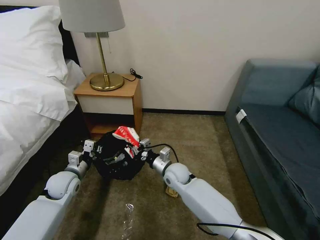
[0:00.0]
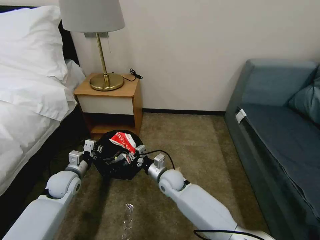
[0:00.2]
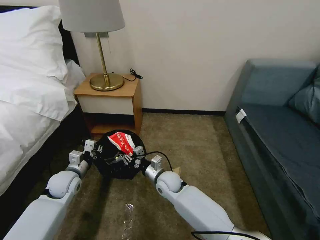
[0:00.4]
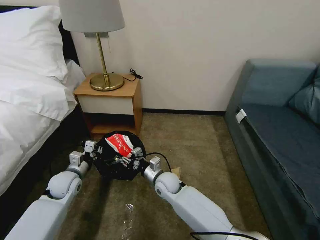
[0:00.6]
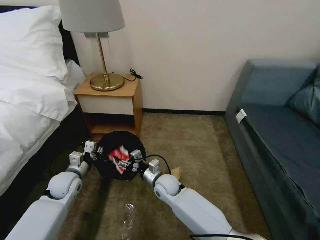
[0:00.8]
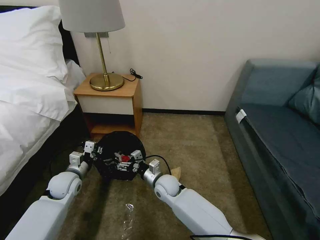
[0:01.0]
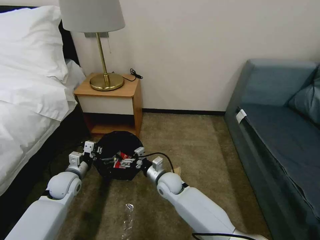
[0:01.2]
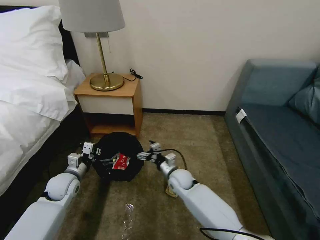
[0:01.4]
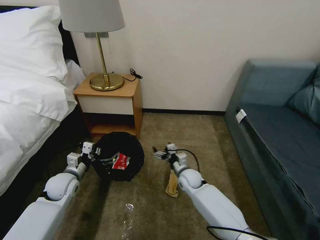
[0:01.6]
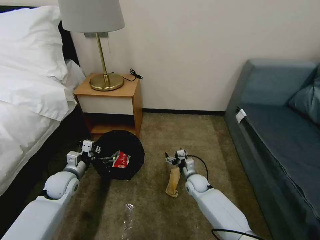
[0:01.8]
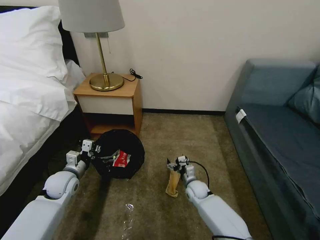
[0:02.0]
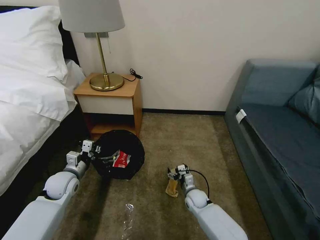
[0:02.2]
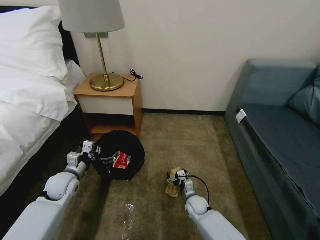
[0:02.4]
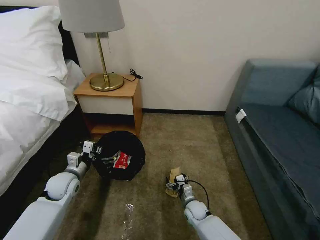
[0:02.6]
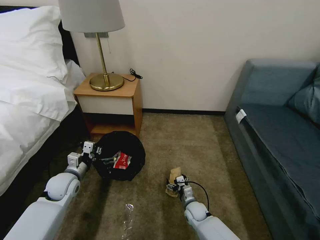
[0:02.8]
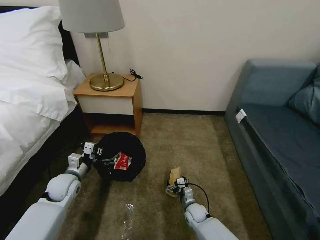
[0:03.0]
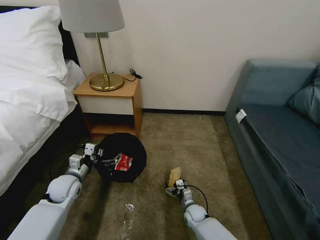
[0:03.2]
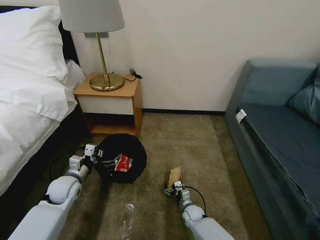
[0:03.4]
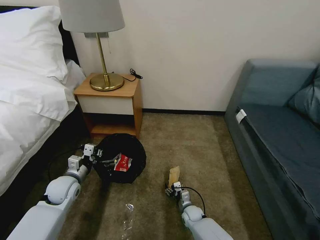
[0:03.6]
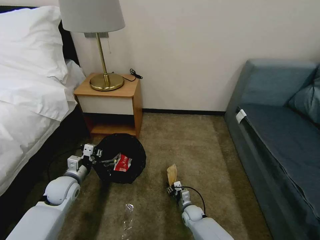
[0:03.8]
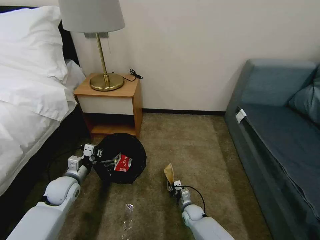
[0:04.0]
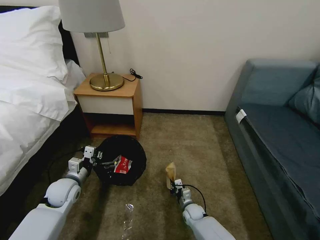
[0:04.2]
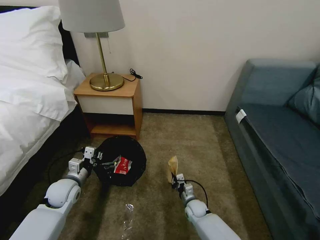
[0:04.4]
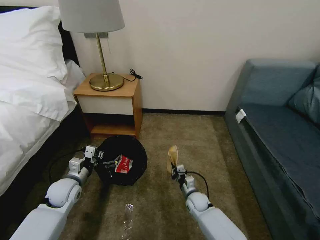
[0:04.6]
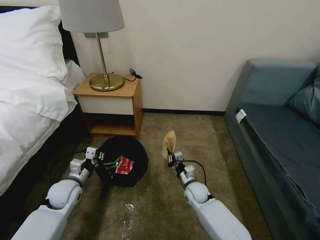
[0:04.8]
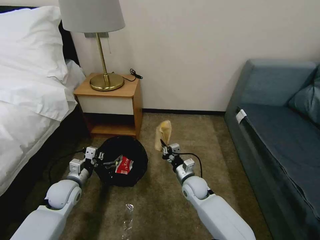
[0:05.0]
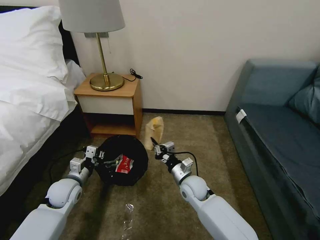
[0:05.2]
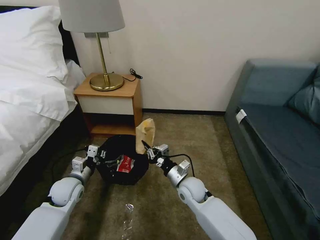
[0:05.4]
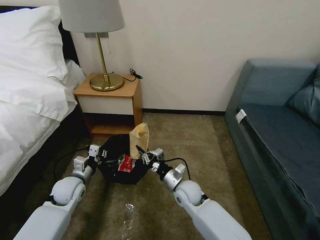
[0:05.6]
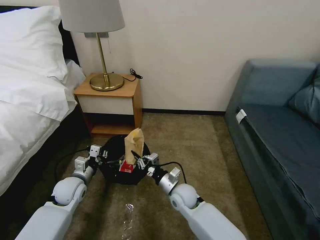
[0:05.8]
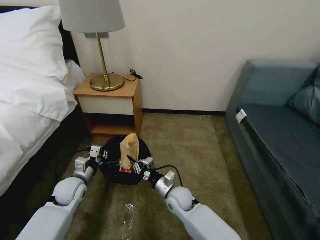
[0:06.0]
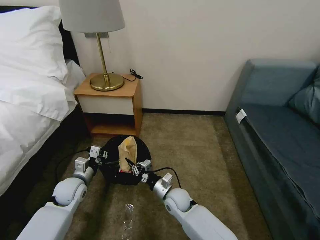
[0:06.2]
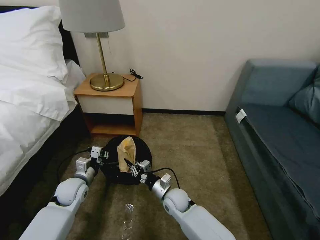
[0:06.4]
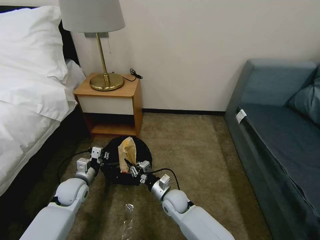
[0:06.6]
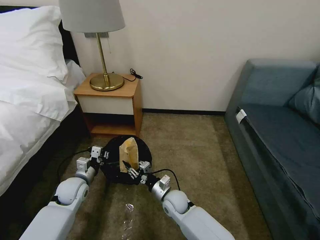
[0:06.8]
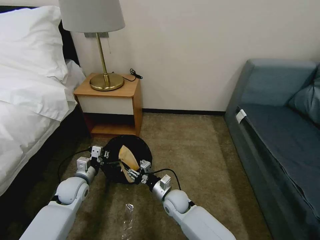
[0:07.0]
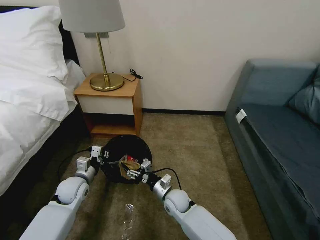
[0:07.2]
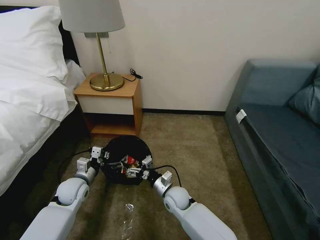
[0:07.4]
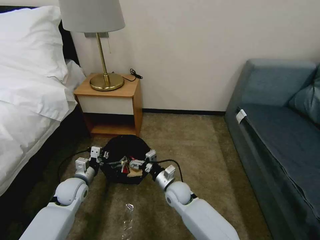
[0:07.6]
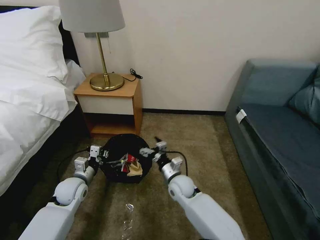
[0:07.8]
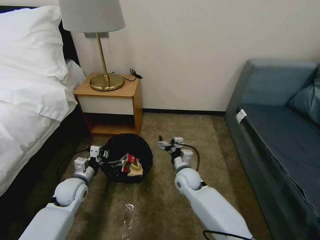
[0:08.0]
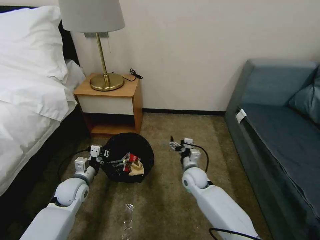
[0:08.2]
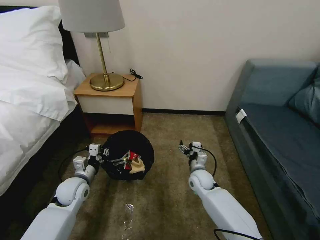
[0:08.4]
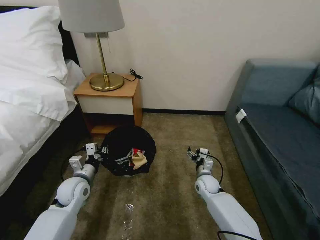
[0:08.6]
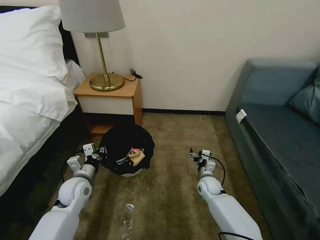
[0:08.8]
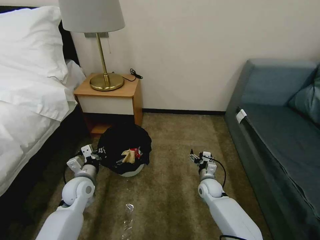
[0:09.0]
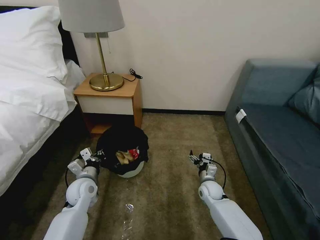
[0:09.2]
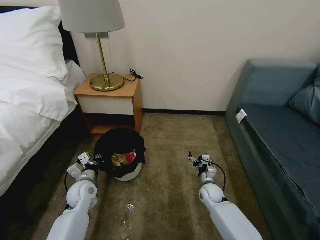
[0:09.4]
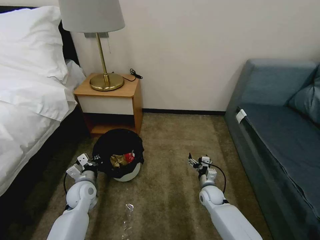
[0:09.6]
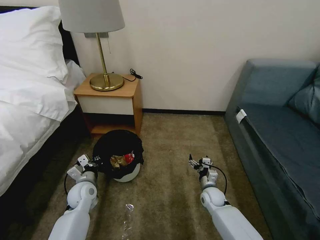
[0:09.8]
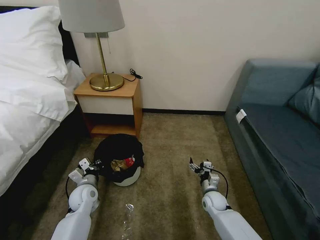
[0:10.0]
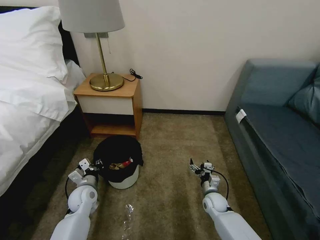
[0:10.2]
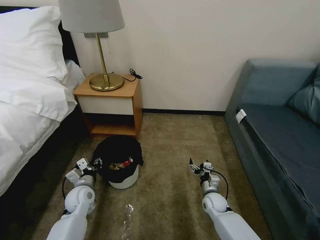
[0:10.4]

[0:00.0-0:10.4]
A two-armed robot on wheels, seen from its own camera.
Task of the whole recording: Pick up the trash bin, then pick up the garbage on the floor and place it into the trash bin.
0:00.0 to 0:01.4: The right gripper opens up.
0:01.4 to 0:03.0: The right gripper shifts roughly 20 cm downward, backward and to the right.
0:03.0 to 0:04.4: The right gripper closes its fingers.
0:04.4 to 0:06.0: The right gripper goes roughly 20 cm upward and to the left.
0:06.0 to 0:07.4: The right gripper opens its fingers.
0:07.4 to 0:09.0: The right gripper moves to the right, some 15 cm.
0:09.0 to 0:10.4: The left gripper shifts some 5 cm downward, and opens. The right gripper changes place by roughly 5 cm.

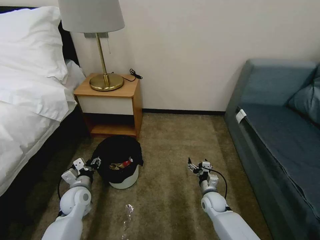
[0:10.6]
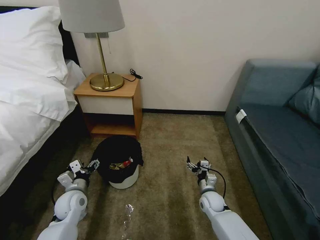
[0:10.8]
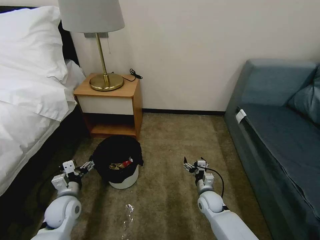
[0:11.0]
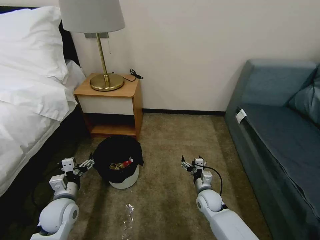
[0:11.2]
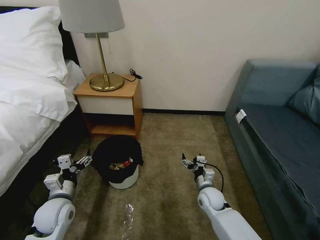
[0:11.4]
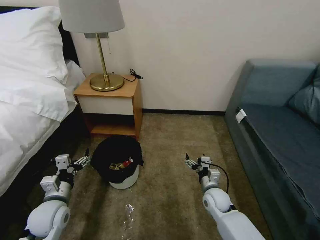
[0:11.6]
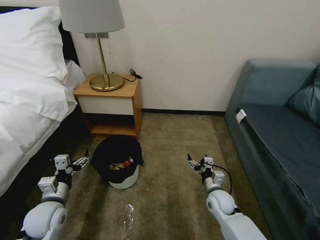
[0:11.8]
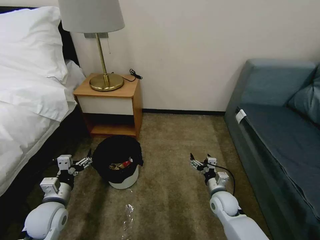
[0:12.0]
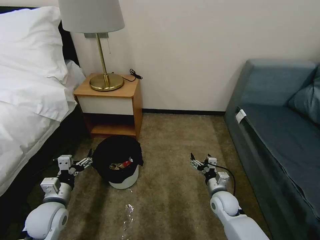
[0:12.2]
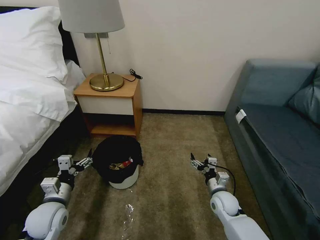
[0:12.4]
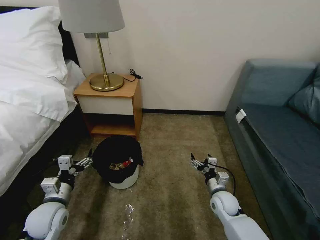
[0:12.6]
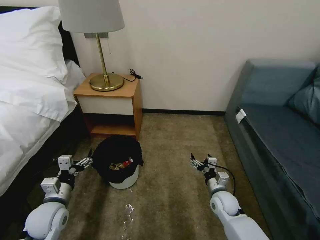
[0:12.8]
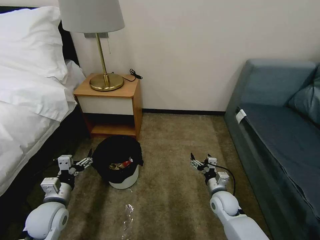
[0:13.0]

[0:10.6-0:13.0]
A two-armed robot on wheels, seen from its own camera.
Task of the whole recording: Pick up the trash bin, then pick up the garbage on the floor and place it into the trash bin.
0:10.6 to 0:11.8: The right gripper travels upward by approximately 5 cm; the left gripper shifts about 10 cm backward and upward, and opens up.
0:11.8 to 0:13.0: The grippers stay close to where they were, moving slightly.

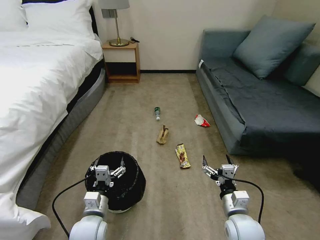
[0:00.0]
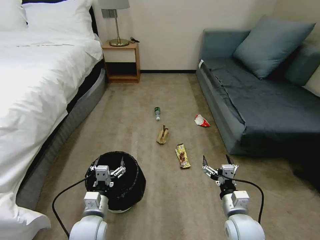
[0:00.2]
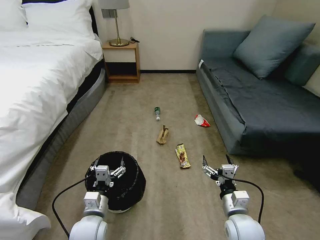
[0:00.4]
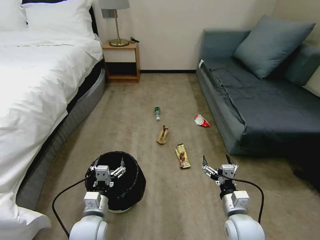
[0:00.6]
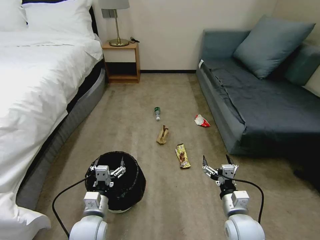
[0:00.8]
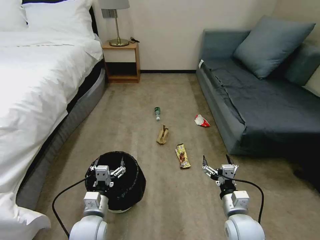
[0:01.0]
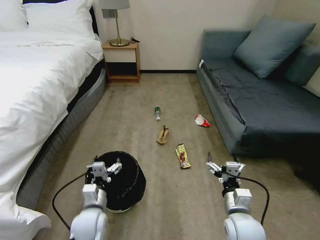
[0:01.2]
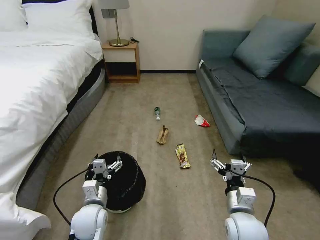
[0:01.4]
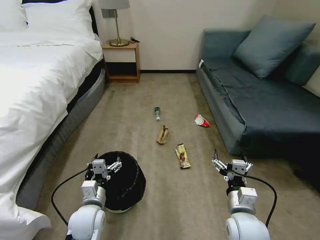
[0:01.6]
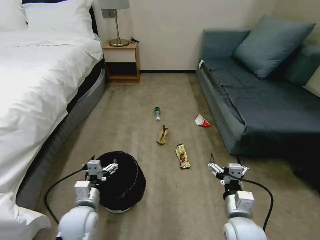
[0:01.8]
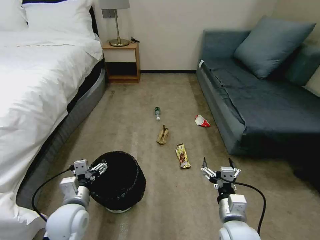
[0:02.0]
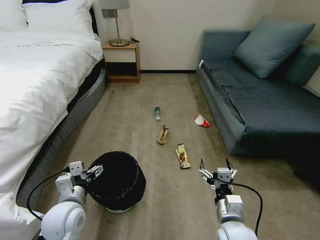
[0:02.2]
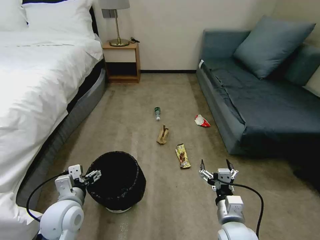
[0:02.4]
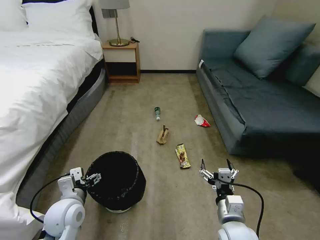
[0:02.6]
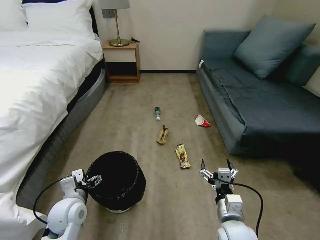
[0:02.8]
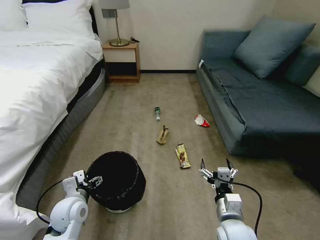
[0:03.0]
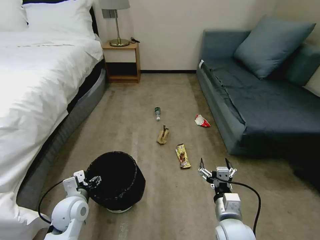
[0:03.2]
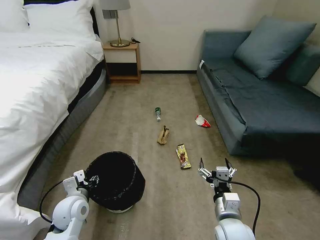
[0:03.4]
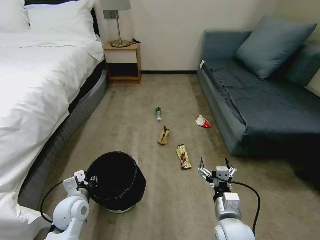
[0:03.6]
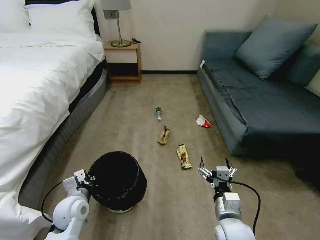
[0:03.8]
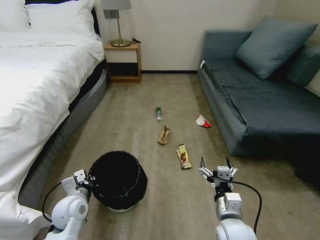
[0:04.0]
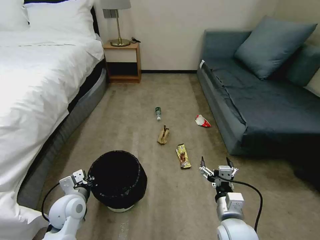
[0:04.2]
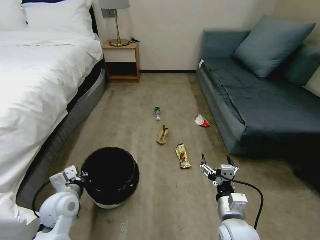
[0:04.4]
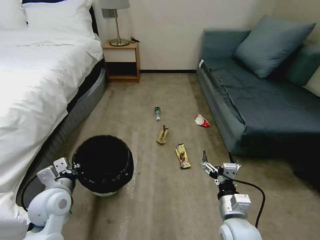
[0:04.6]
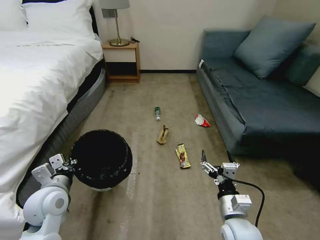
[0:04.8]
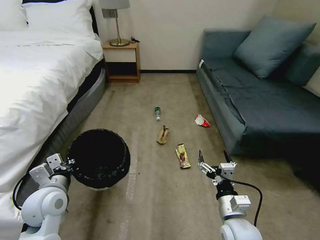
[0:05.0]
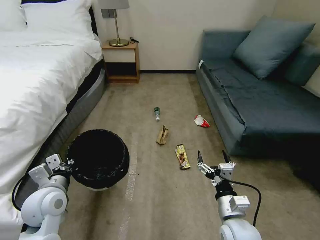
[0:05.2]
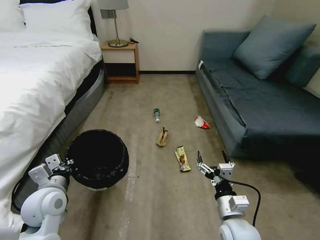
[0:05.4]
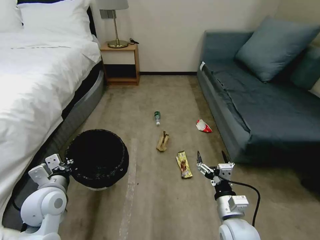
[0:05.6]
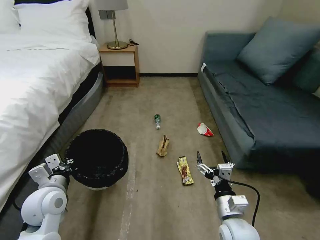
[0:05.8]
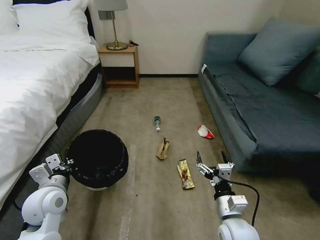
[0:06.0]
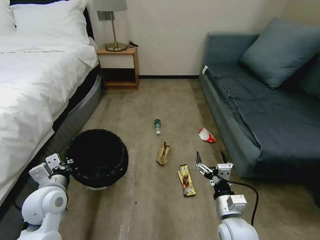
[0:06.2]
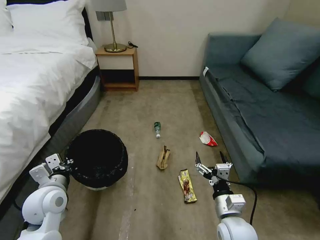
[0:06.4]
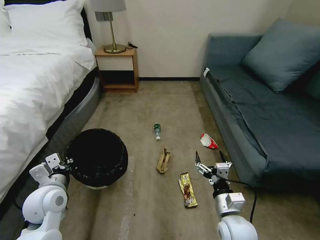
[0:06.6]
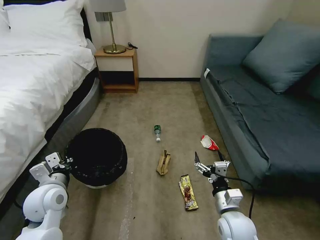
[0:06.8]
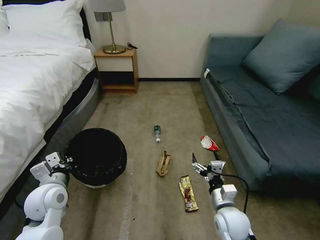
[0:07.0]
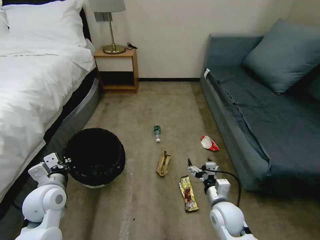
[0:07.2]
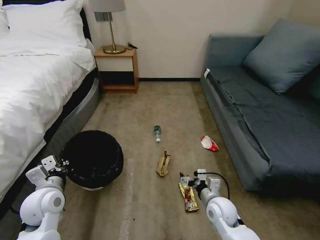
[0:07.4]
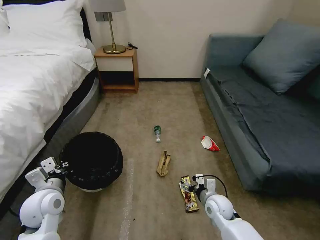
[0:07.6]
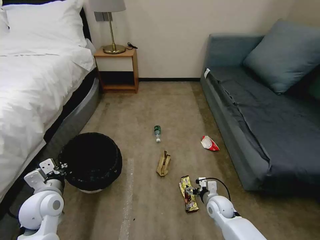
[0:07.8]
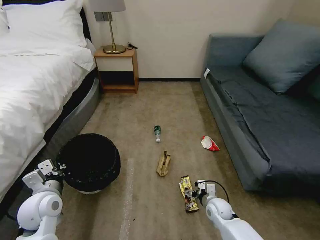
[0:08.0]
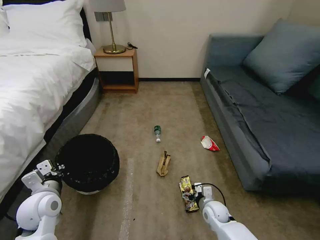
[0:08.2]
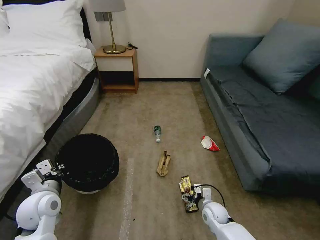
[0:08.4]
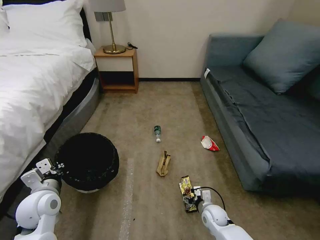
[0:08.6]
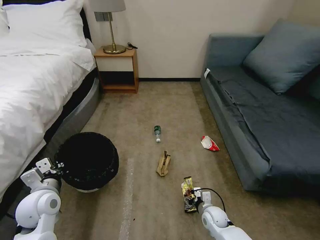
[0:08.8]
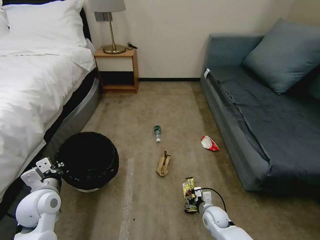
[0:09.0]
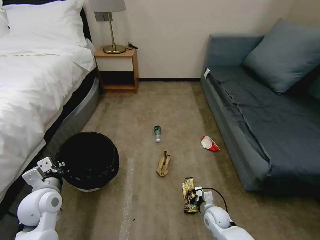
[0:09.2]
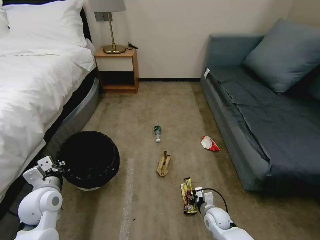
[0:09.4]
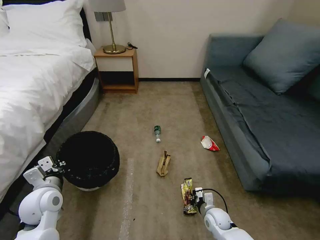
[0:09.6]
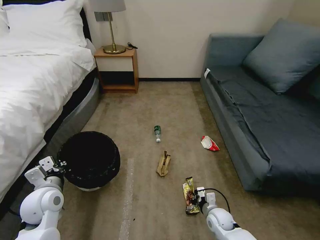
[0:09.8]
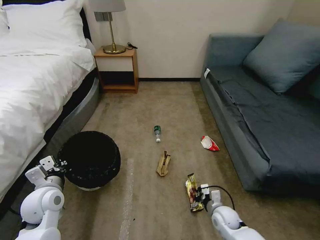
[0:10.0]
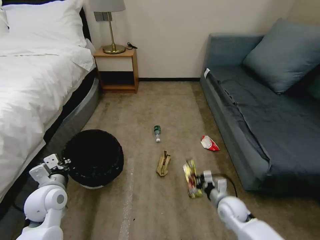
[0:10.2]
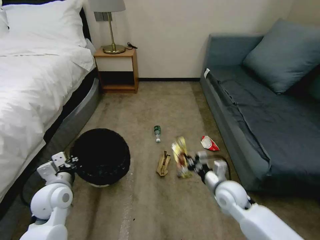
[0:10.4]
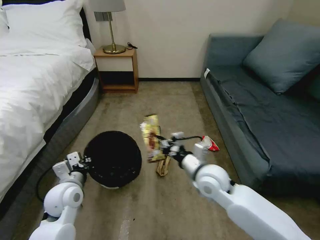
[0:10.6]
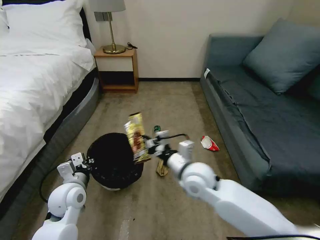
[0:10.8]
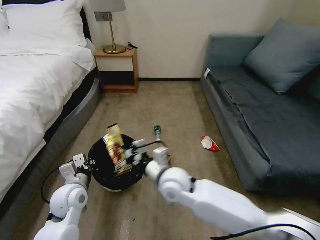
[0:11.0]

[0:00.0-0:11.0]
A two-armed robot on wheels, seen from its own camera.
Task of the whole recording: Pick up the trash bin, then pick up the garbage on the floor and place it into the trash bin.
0:01.6 to 0:03.2: The left gripper shifts about 5 cm to the left.
0:03.2 to 0:04.8: The left gripper goes approximately 10 cm upward, and closes up.
0:06.2 to 0:07.8: The right gripper moves downward and forward, some 20 cm.
0:07.8 to 0:09.4: The right gripper goes some 5 cm downward, and closes up.
0:09.4 to 0:11.0: The right gripper heads upward and to the left, covering approximately 35 cm. The left gripper heads to the right, covering roughly 5 cm.
